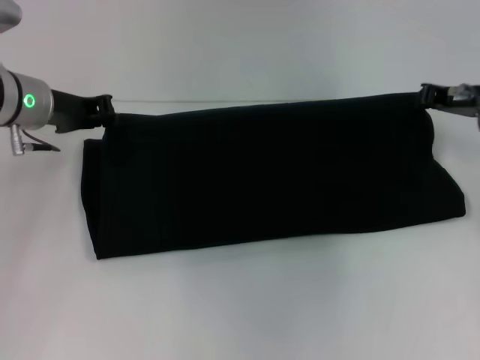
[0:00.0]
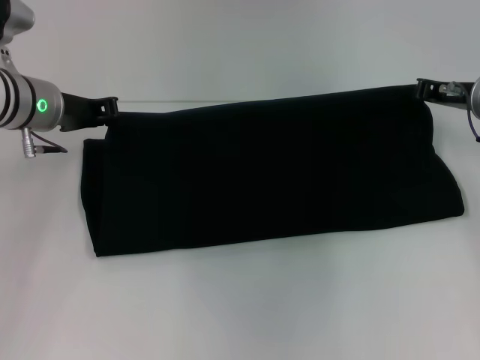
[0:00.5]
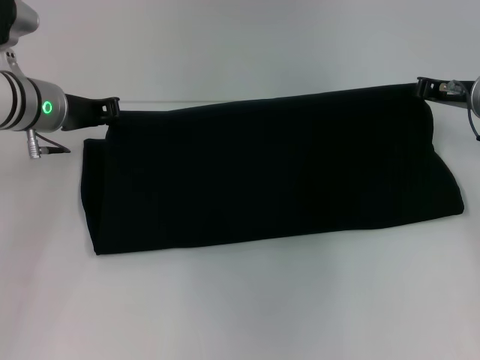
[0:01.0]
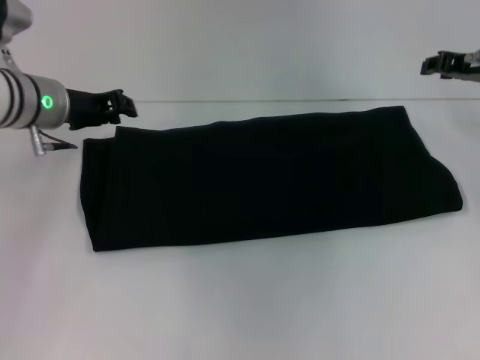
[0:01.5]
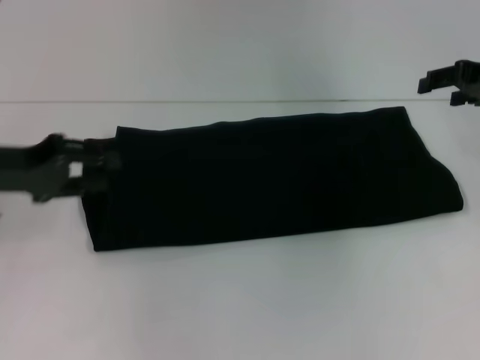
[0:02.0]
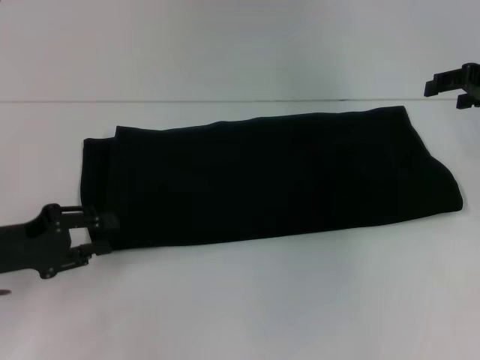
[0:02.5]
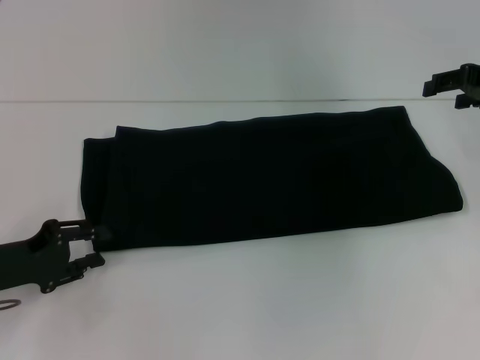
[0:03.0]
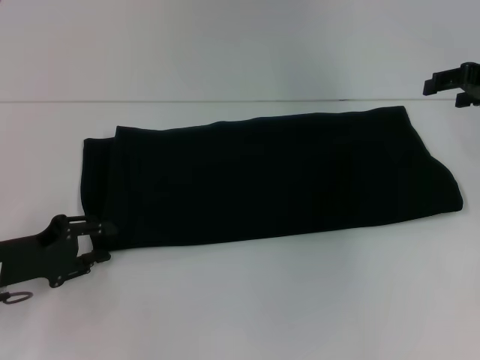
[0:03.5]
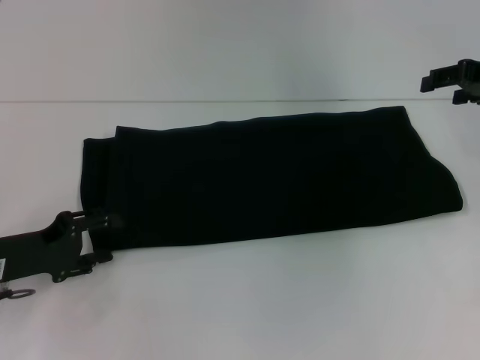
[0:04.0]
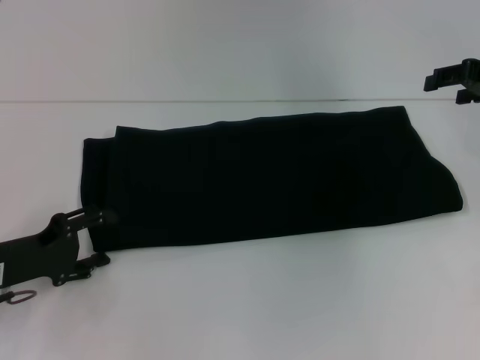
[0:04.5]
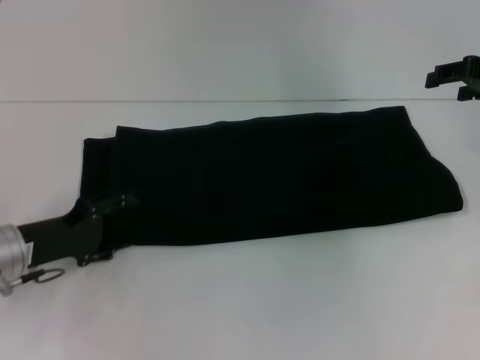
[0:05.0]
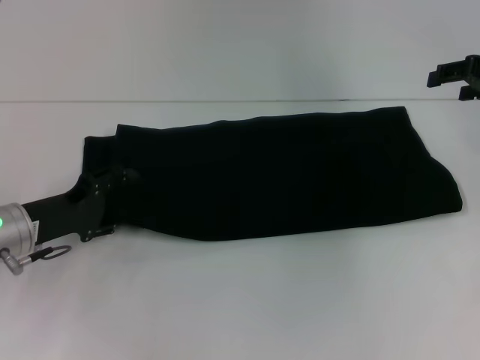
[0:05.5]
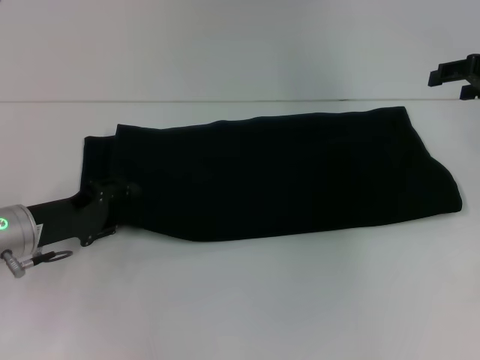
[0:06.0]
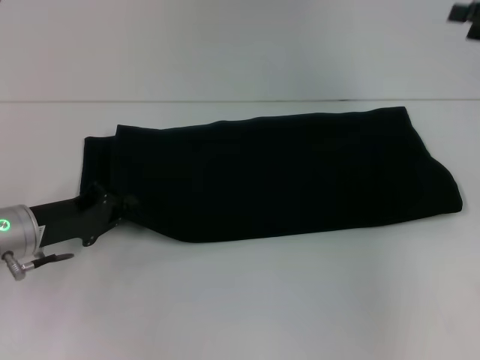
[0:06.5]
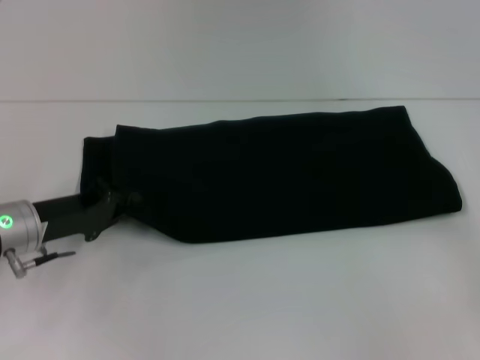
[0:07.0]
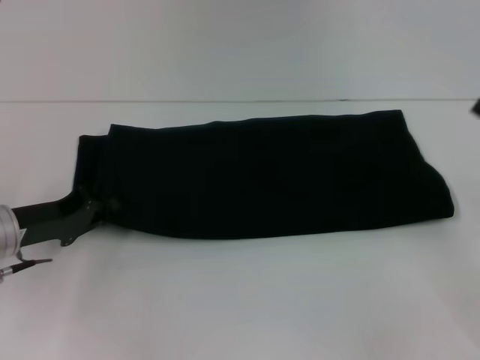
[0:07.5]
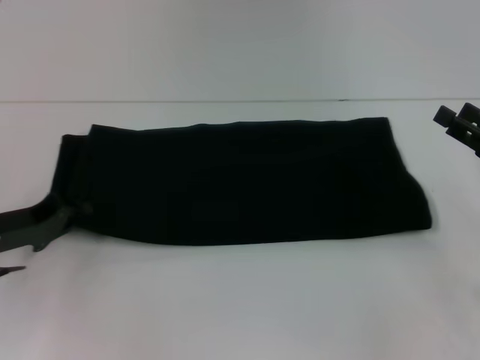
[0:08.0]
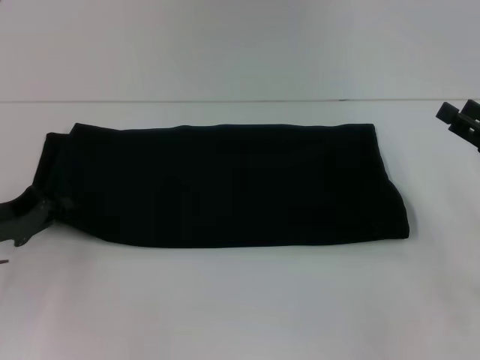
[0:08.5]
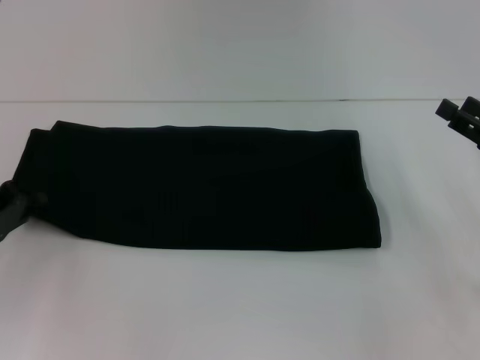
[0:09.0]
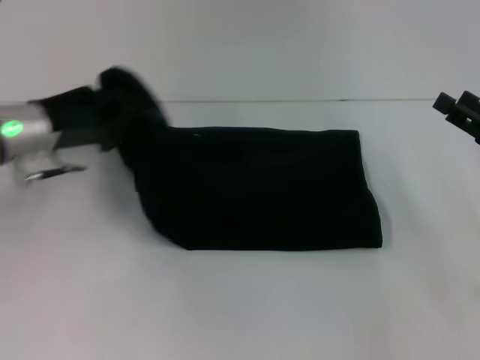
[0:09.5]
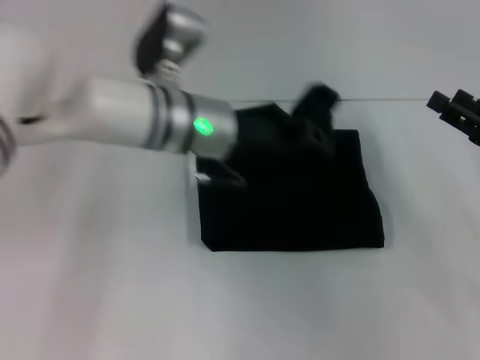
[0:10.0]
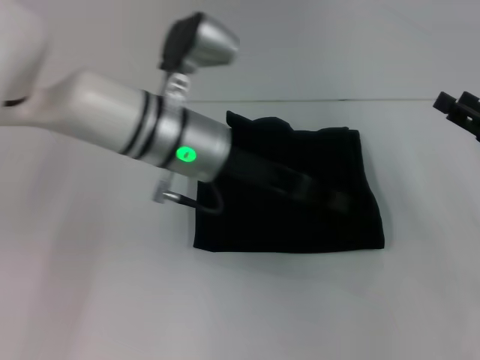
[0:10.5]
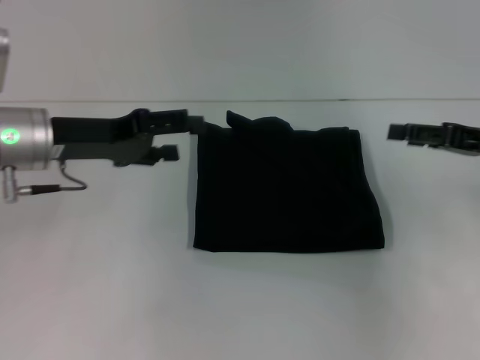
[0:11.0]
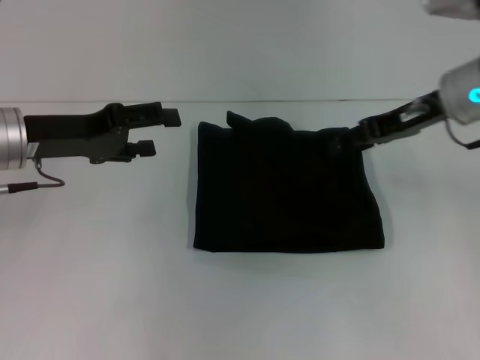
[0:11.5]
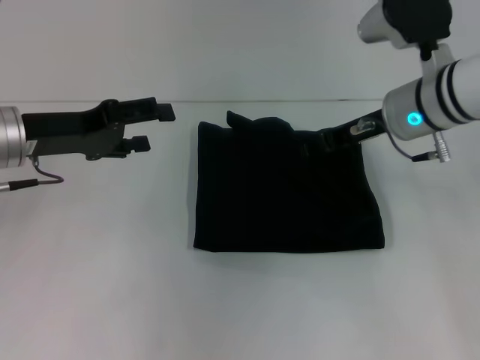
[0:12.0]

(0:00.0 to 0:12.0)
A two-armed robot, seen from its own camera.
Step, 0:00.0 - 0:10.5: Fold the clothes with your left hand.
0:00.0 - 0:02.0: The right gripper travels upward by approximately 5 cm, and opens up. The left gripper heads backward and to the left, covering approximately 10 cm, and opens up.
0:02.0 - 0:04.0: The left gripper heads downward, covering some 10 cm.
0:04.0 - 0:06.0: There are only small adjustments of the grippers.
0:06.0 - 0:08.0: The left gripper closes up. Meanwhile the right gripper moves backward and downward, approximately 15 cm.
0:08.0 - 0:10.0: The left gripper heads to the right, covering approximately 25 cm.
0:10.0 - 0:12.0: The right gripper shifts about 20 cm to the left and forward, while the left gripper goes roughly 20 cm to the left, and opens.

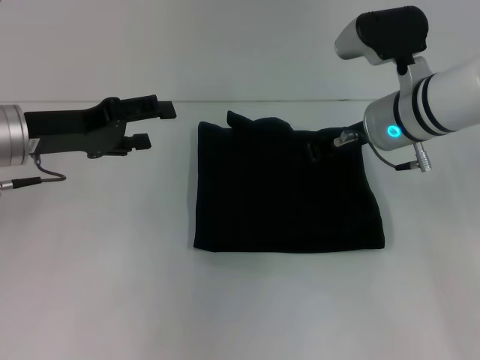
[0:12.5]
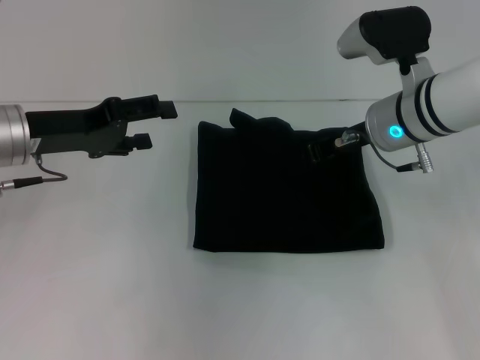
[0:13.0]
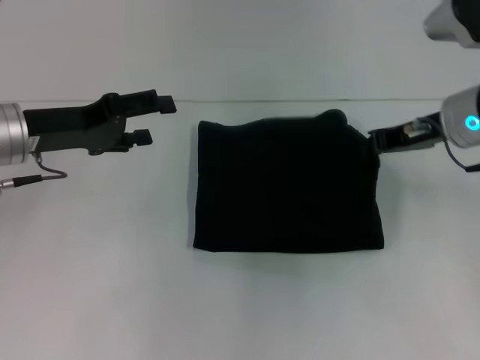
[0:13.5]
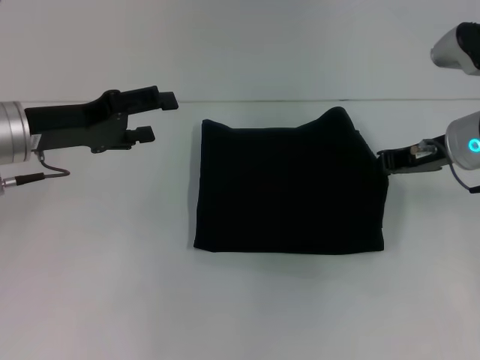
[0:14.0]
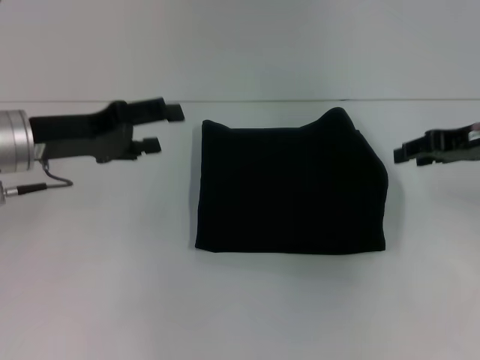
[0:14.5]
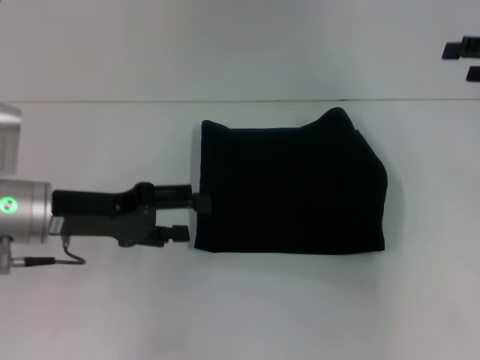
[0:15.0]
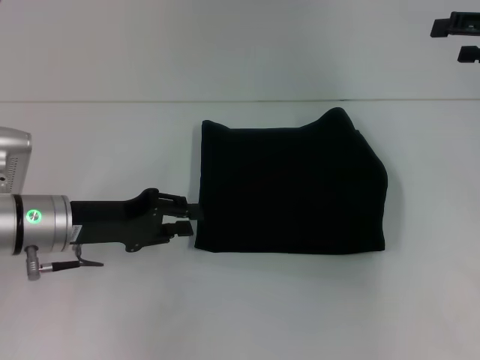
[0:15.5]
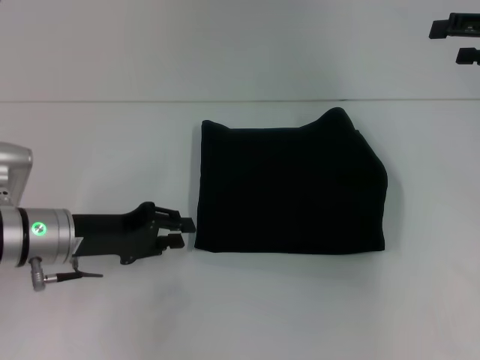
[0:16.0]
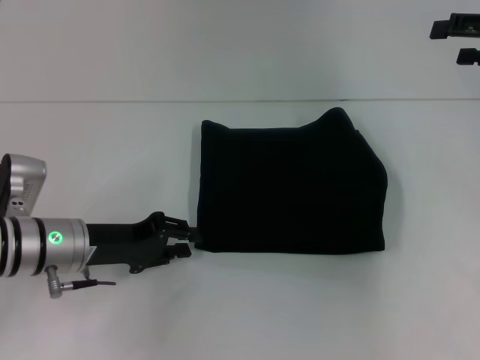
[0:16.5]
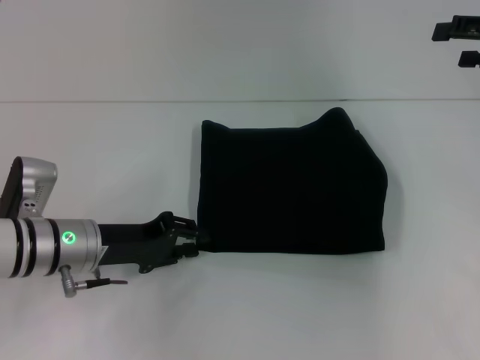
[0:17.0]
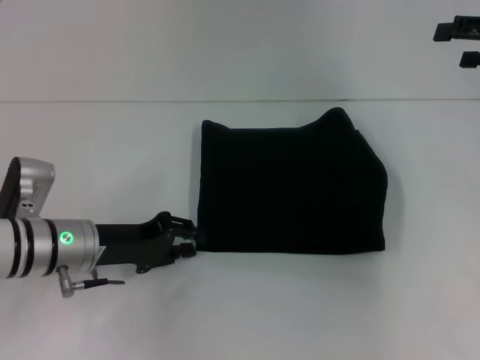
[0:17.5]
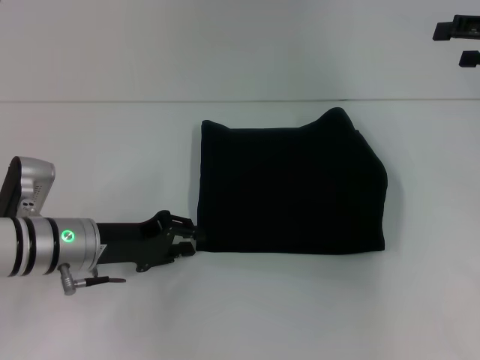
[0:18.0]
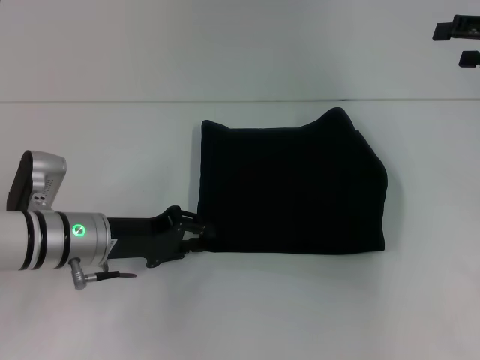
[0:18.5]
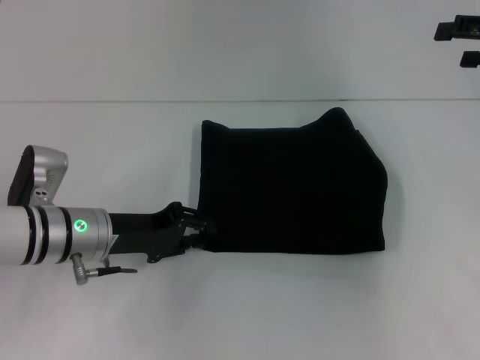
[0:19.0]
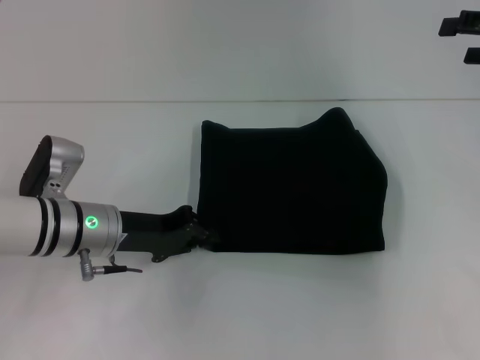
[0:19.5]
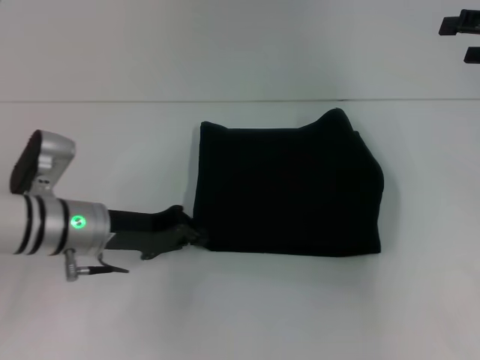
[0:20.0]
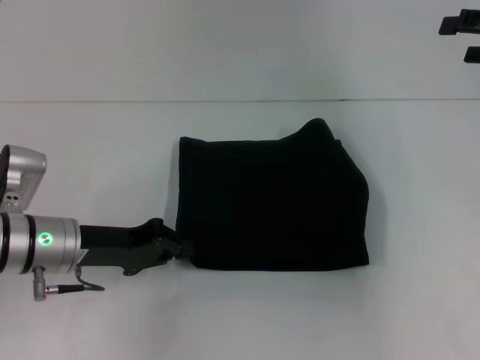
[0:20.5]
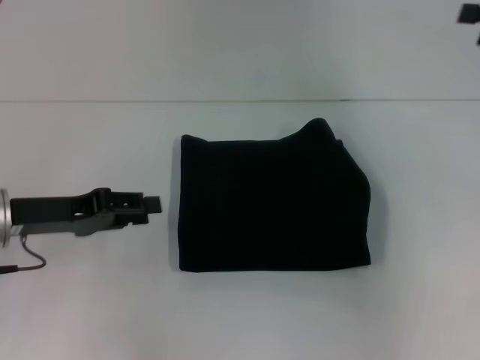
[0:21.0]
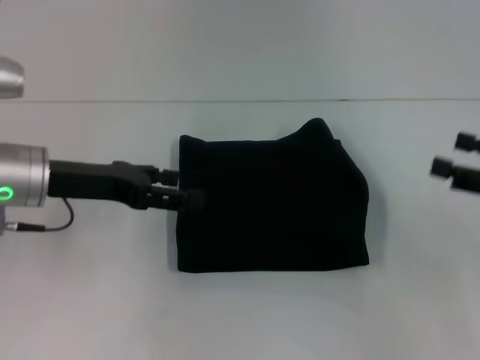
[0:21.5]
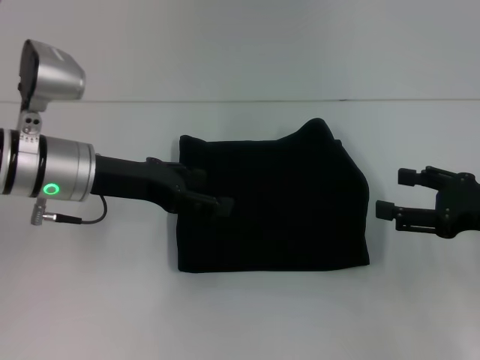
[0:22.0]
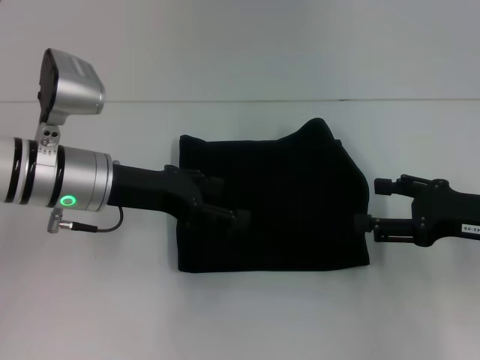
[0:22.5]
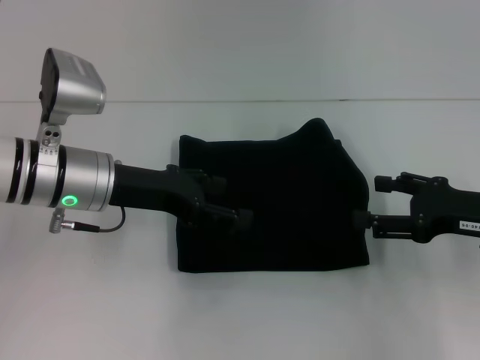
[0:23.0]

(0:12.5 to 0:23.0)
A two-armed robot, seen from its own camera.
0:12.5 - 0:14.5: The right gripper goes approximately 15 cm to the right.
0:14.5 - 0:16.5: The left gripper travels downward by some 10 cm, and closes its fingers. The right gripper travels upward and to the right by roughly 10 cm, and opens its fingers.
0:16.5 - 0:19.0: There are only small adjustments of the grippers.
0:19.0 - 0:21.0: The left gripper shifts approximately 10 cm to the left and upward.
0:21.0 - 0:23.0: The right gripper heads downward, backward and to the left, covering some 15 cm; the left gripper shifts some 10 cm to the right, and opens up.

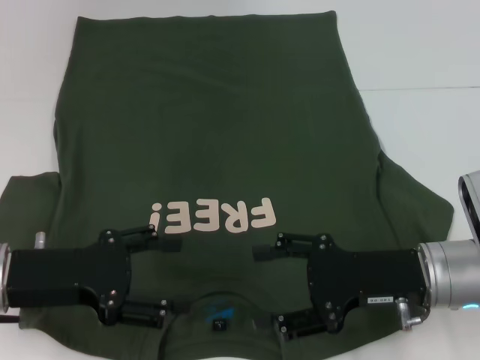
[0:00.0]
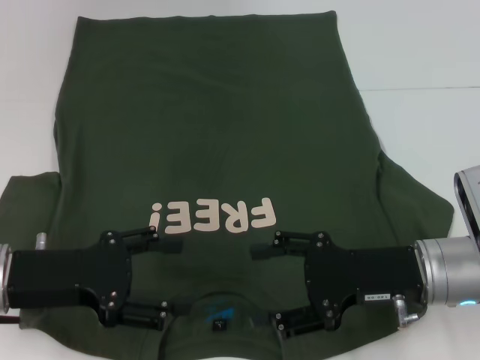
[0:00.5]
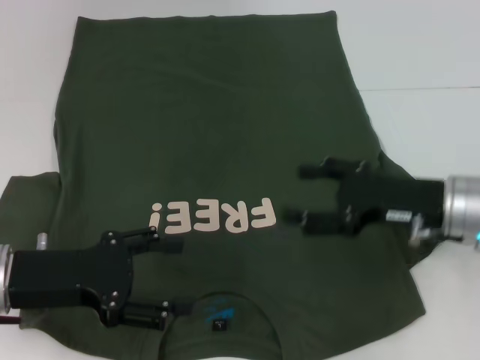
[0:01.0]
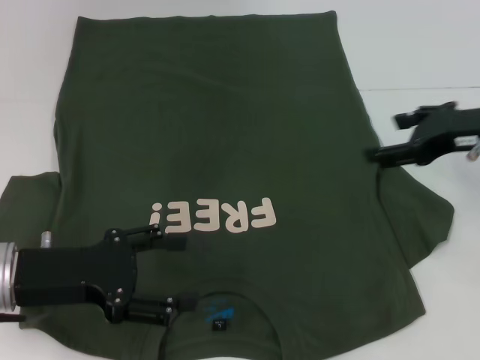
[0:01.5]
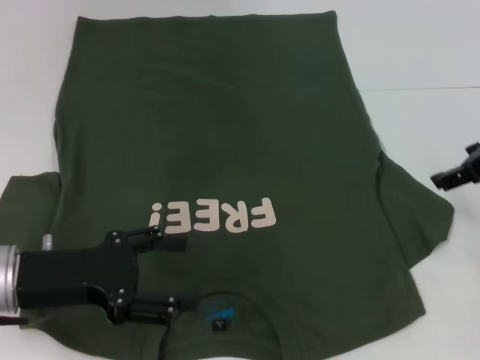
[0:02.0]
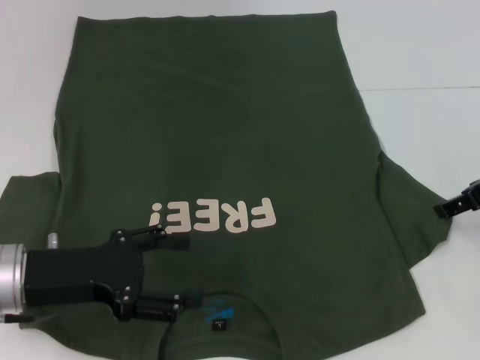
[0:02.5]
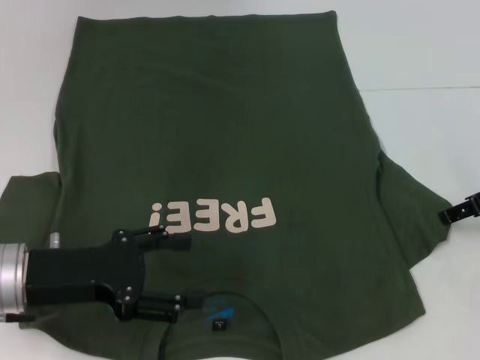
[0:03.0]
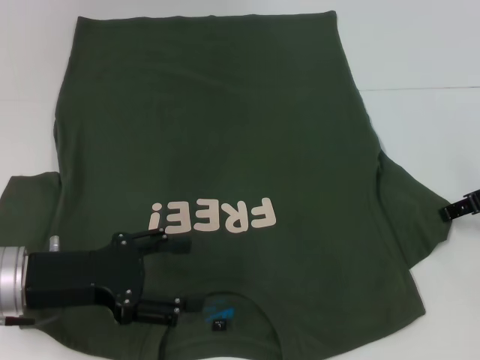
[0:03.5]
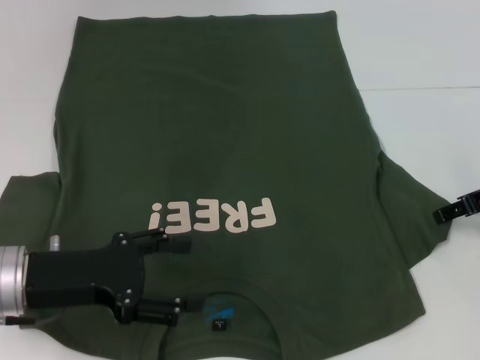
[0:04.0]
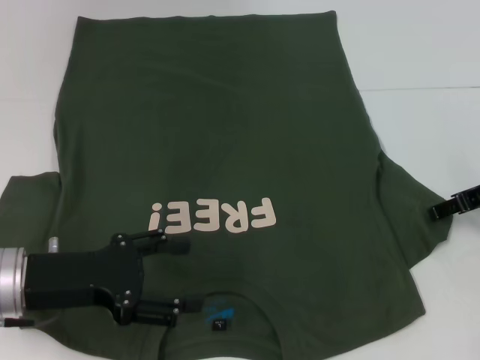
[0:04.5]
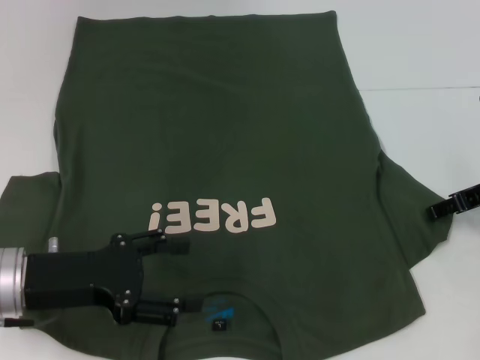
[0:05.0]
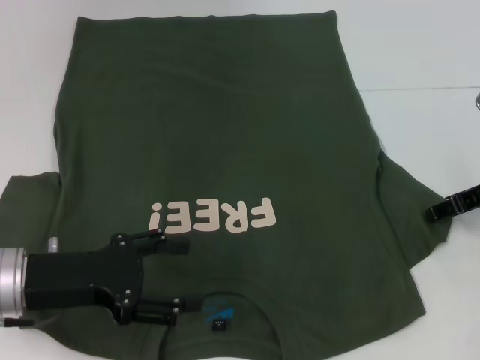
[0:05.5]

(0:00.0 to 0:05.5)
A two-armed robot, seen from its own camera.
0:00.0 - 0:02.0: The right gripper shifts roughly 15 cm upward, to the right and forward.
0:02.0 - 0:03.5: The right gripper goes about 5 cm downward.
